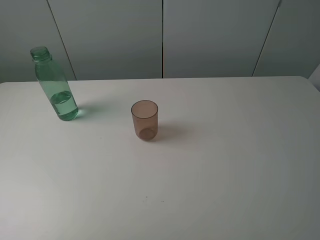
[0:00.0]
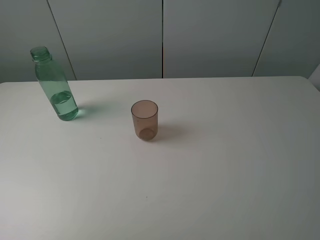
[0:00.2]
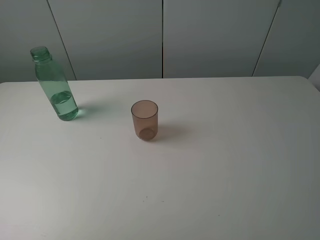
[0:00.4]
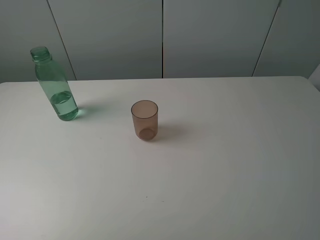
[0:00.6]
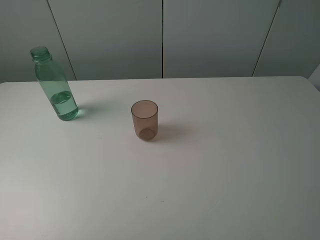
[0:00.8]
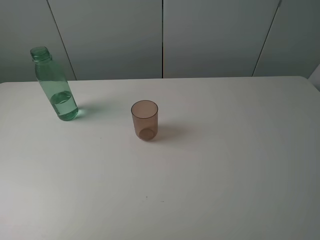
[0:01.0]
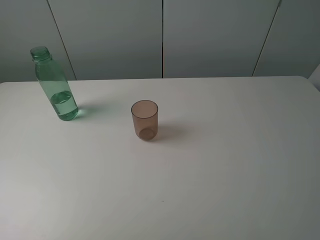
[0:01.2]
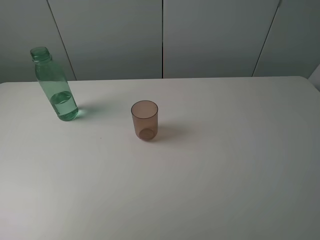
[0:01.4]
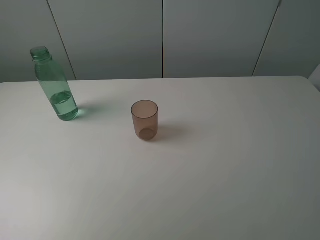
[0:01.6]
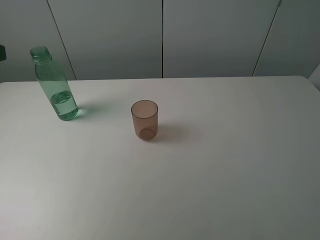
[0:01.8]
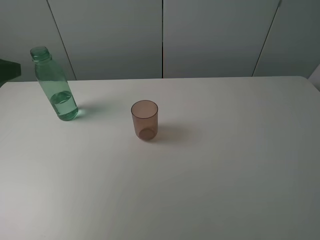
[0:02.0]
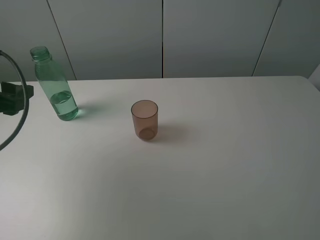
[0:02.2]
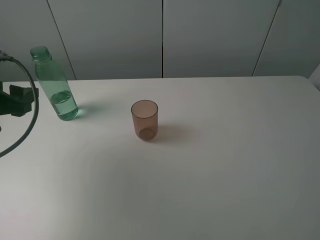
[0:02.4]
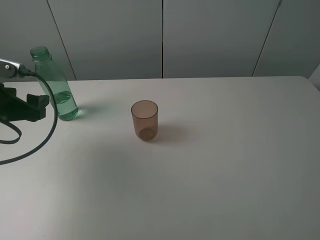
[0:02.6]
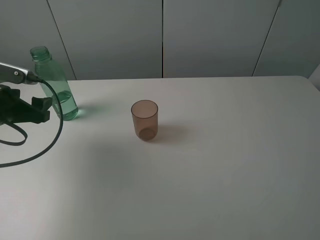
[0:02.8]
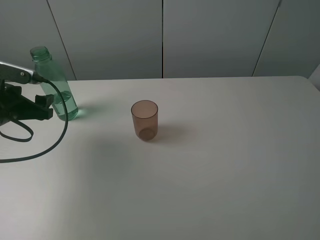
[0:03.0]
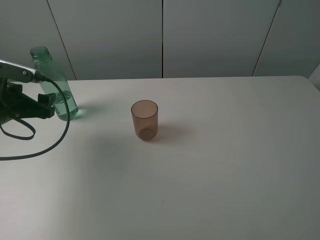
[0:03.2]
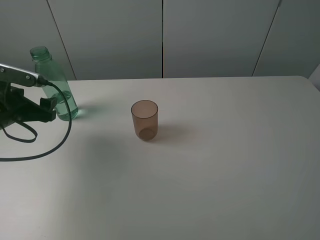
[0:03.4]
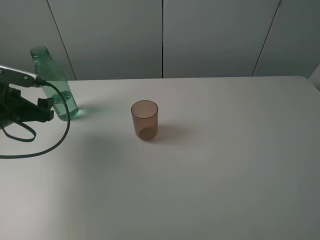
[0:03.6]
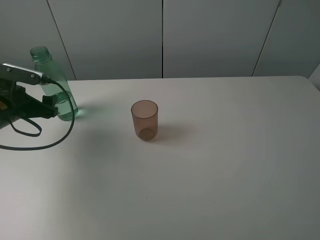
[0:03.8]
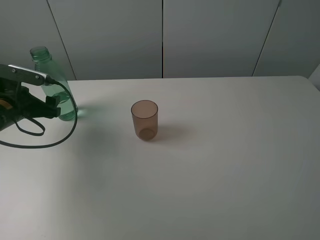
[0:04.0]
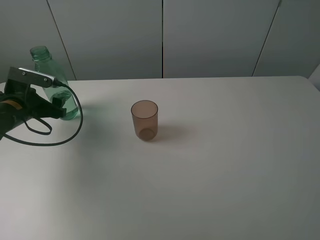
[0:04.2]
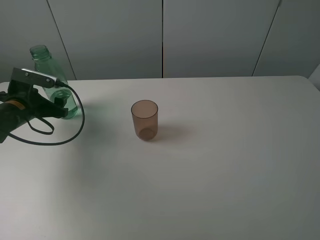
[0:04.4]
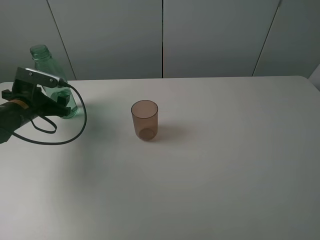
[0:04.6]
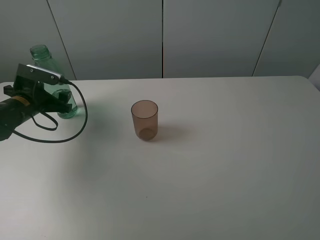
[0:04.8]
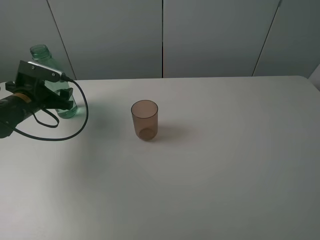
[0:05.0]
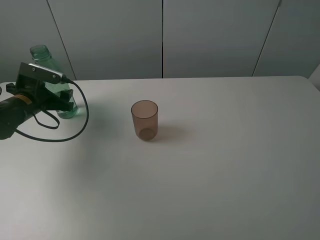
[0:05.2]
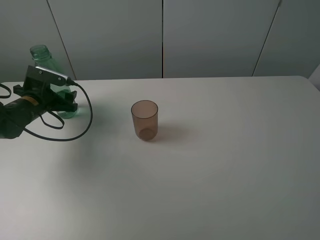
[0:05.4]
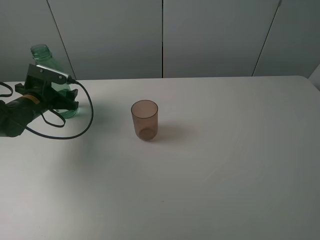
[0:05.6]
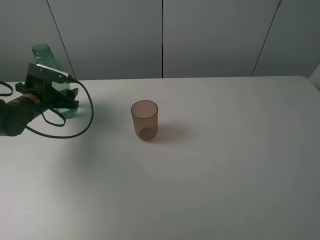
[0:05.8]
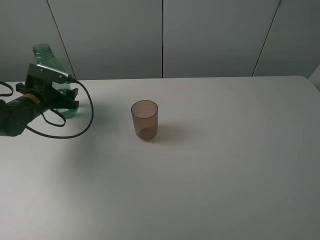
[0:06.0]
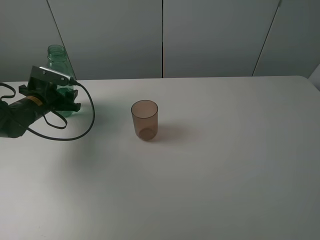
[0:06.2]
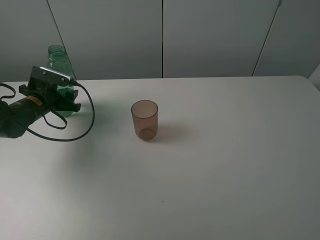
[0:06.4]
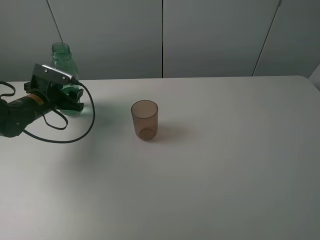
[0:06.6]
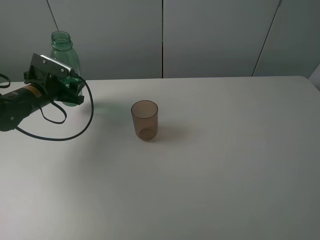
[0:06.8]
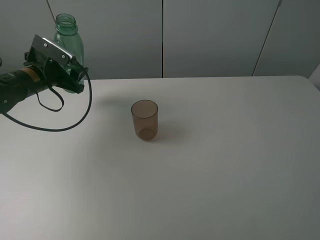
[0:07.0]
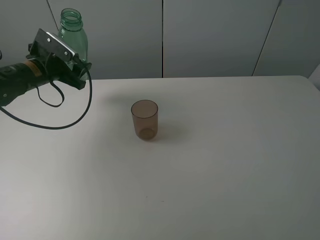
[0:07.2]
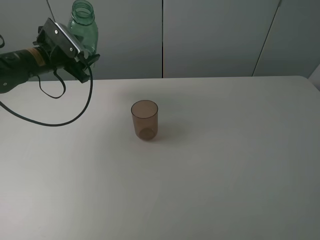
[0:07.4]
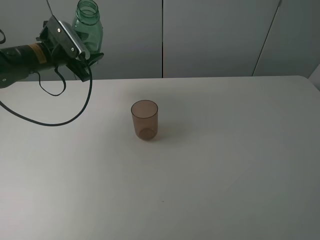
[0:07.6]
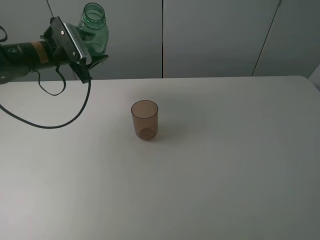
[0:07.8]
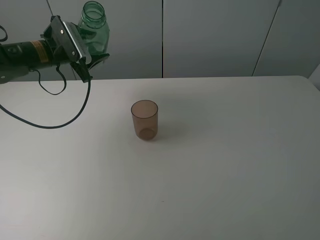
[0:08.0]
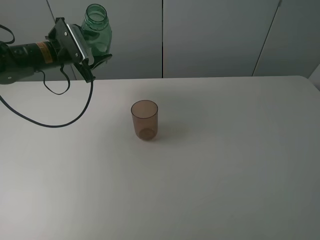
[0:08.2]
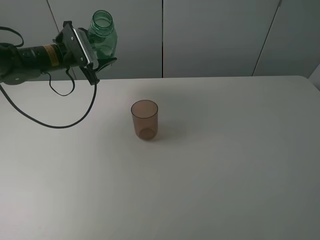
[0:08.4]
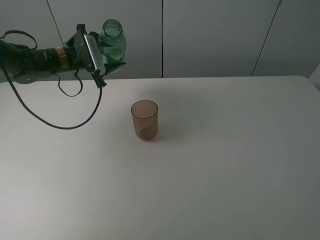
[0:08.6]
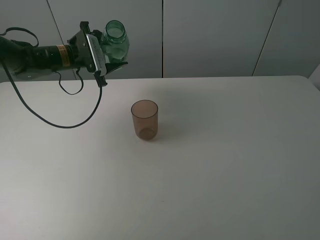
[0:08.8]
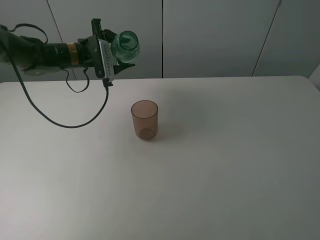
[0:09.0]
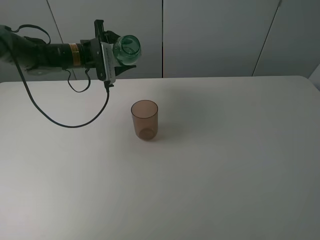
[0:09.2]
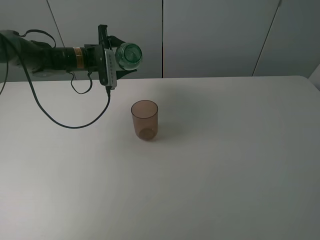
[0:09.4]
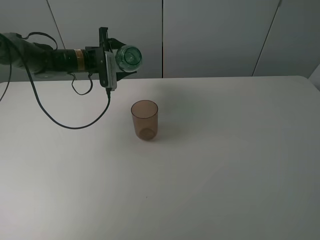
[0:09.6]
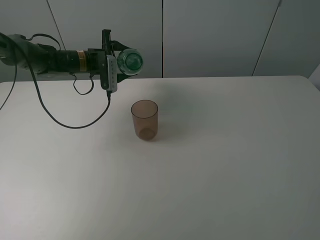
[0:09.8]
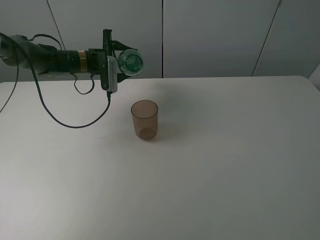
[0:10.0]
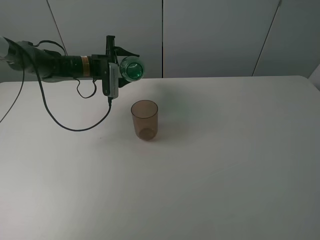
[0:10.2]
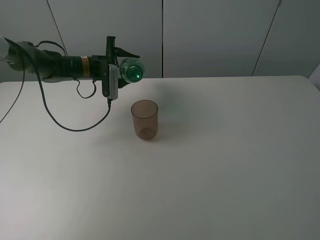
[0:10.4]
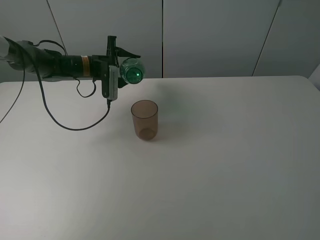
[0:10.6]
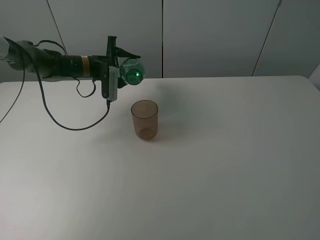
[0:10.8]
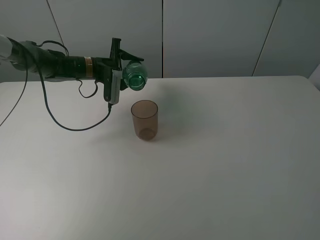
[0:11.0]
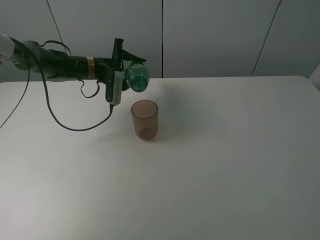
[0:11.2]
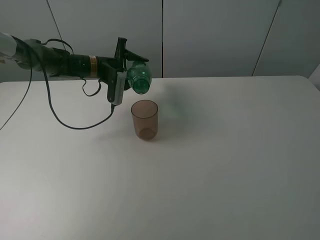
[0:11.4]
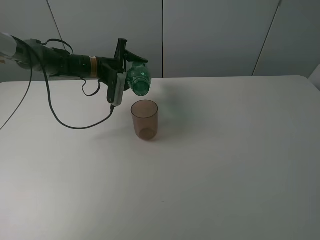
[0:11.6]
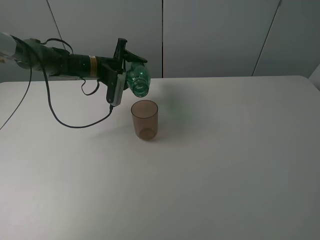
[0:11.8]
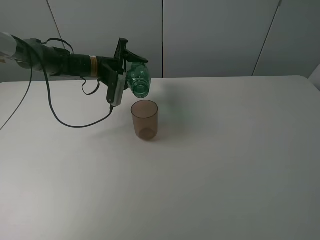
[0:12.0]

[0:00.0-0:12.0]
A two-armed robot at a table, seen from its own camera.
Task of the whole recording: pick up the bottle filled with water and pour it into the pink cup.
Step, 0:00.0 to 0:06.4: Grasp the green bottle with the left gripper.
0:01.6 to 0:03.0: The left gripper shifts some 25 cm downward and forward.
0:03.0 to 0:04.4: The left gripper travels forward and downward by roughly 10 cm.
0:04.4 to 0:06.0: The grippers move only a little.
0:06.0 to 0:07.6: The left gripper shifts about 10 cm upward and to the right.
0:07.6 to 0:09.0: The left gripper moves to the right, approximately 5 cm.
0:09.0 to 0:10.4: The left gripper changes place by some 5 cm.
0:10.4 to 0:12.0: The grippers stay close to where they were, moving slightly.

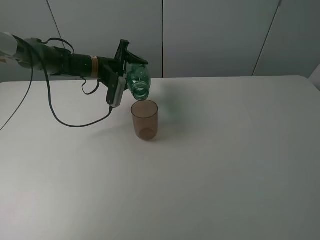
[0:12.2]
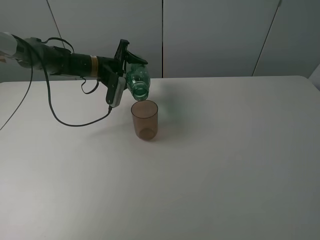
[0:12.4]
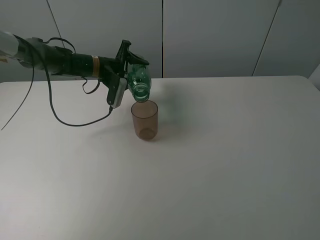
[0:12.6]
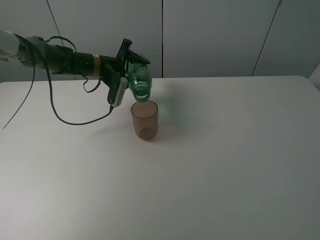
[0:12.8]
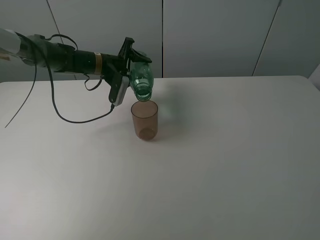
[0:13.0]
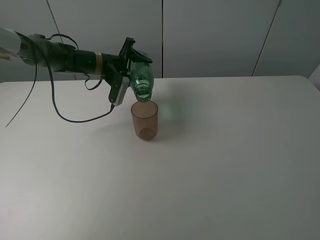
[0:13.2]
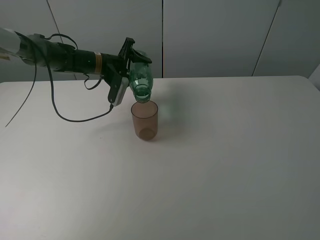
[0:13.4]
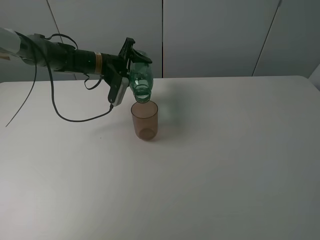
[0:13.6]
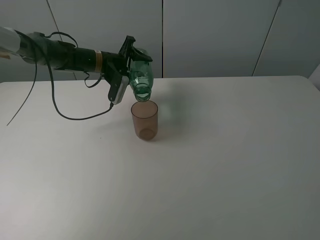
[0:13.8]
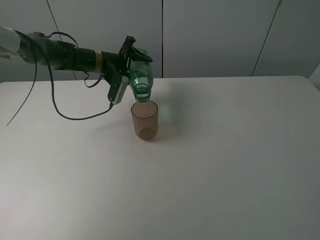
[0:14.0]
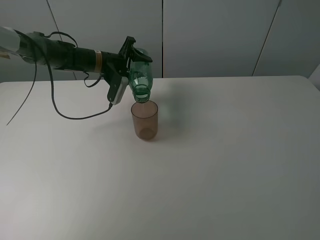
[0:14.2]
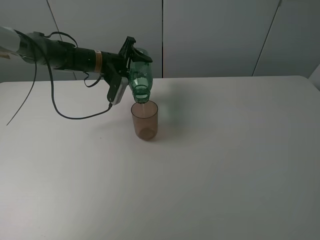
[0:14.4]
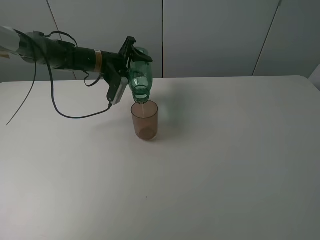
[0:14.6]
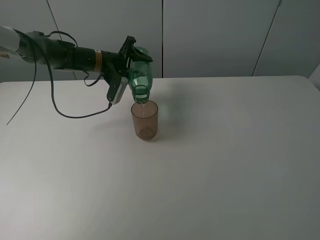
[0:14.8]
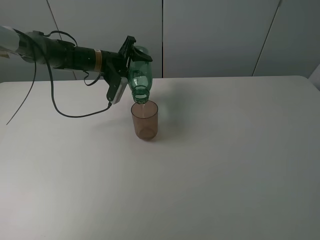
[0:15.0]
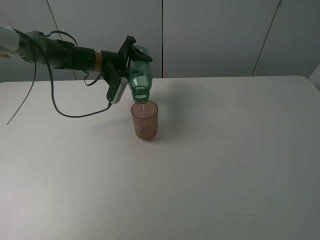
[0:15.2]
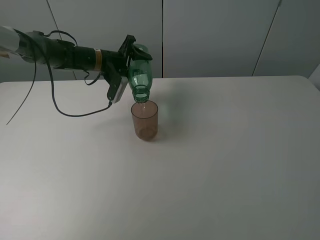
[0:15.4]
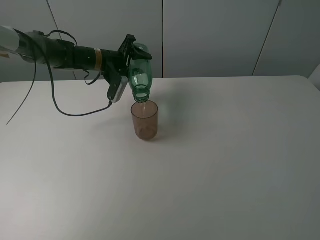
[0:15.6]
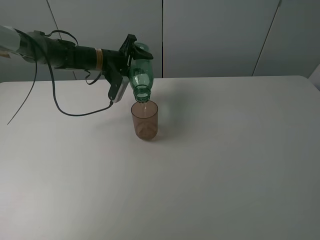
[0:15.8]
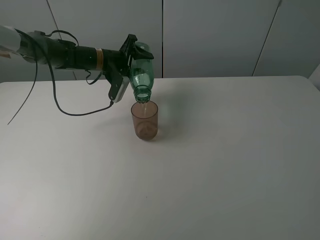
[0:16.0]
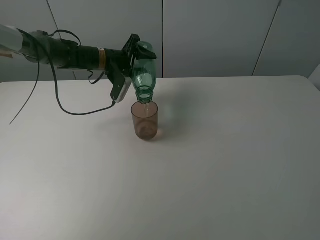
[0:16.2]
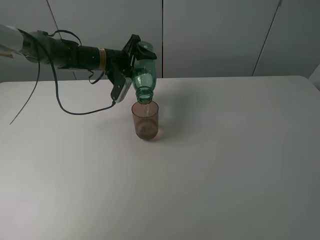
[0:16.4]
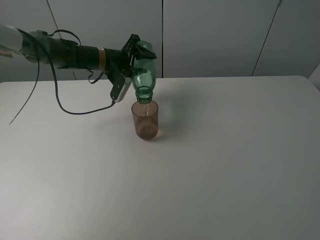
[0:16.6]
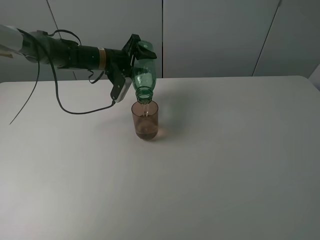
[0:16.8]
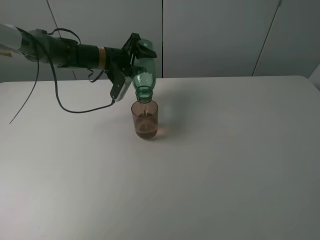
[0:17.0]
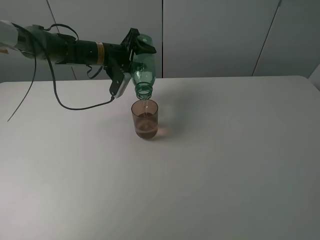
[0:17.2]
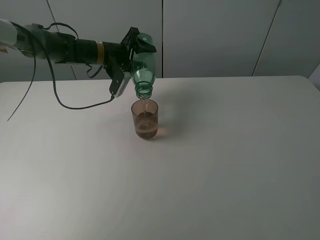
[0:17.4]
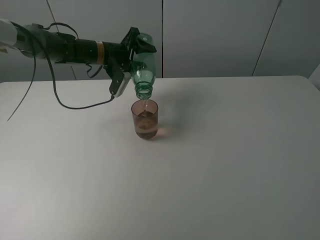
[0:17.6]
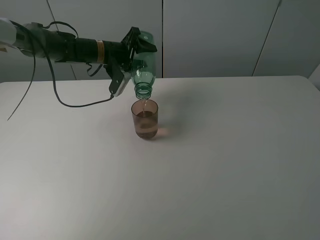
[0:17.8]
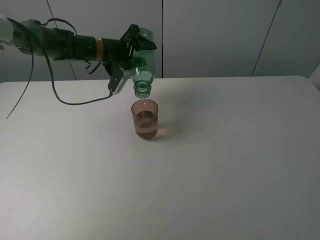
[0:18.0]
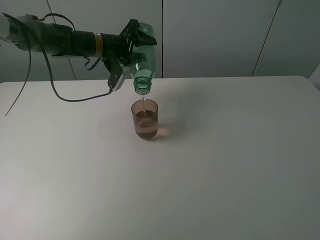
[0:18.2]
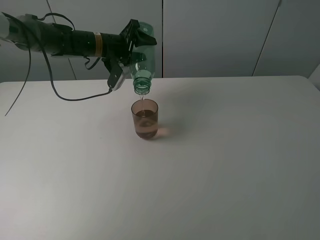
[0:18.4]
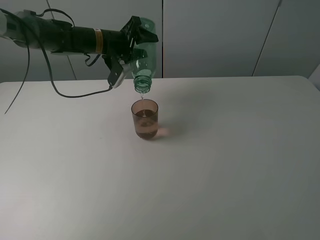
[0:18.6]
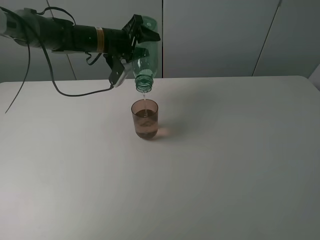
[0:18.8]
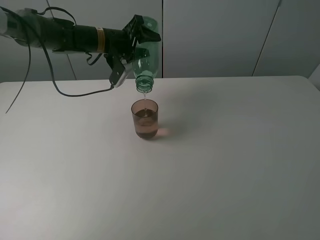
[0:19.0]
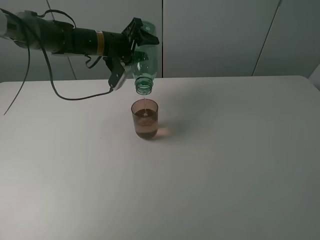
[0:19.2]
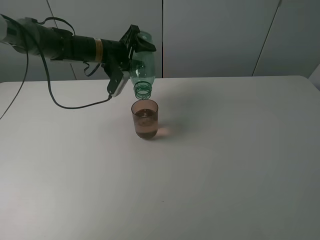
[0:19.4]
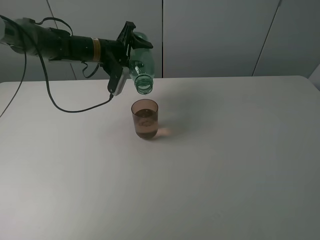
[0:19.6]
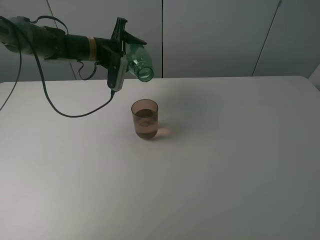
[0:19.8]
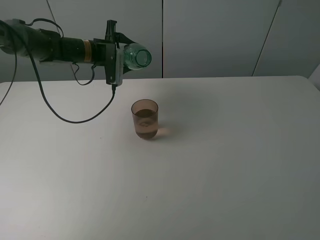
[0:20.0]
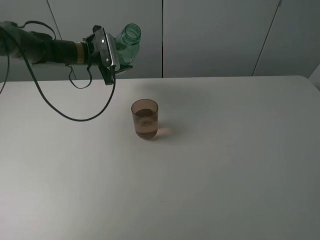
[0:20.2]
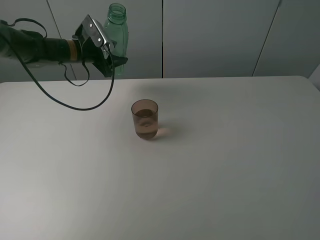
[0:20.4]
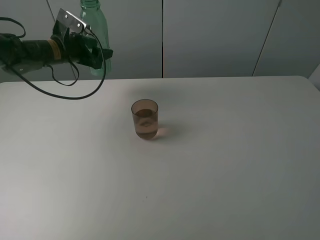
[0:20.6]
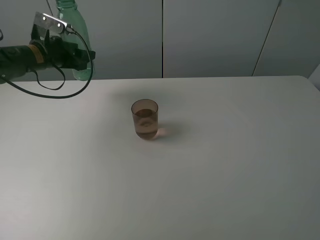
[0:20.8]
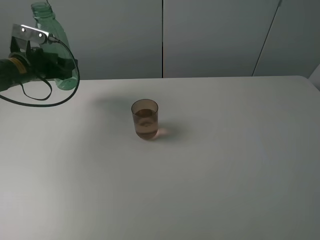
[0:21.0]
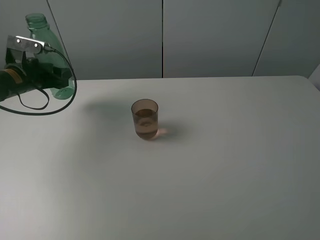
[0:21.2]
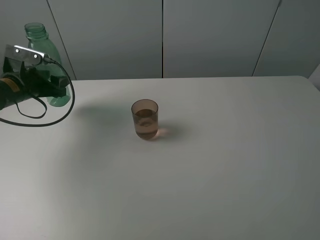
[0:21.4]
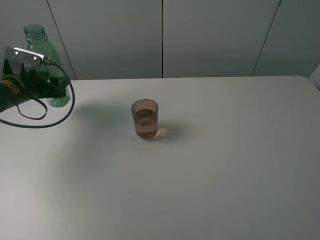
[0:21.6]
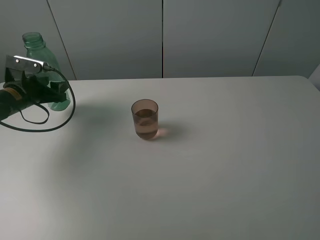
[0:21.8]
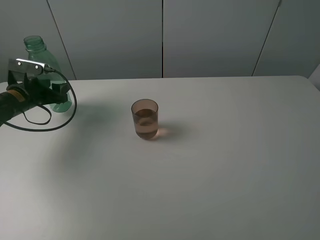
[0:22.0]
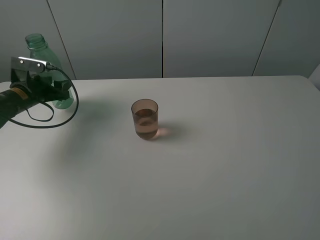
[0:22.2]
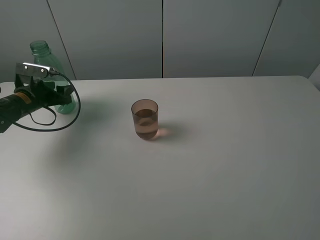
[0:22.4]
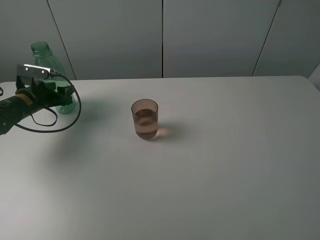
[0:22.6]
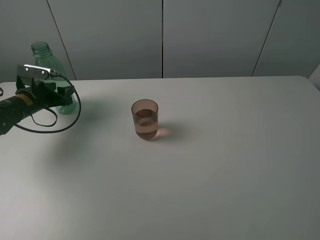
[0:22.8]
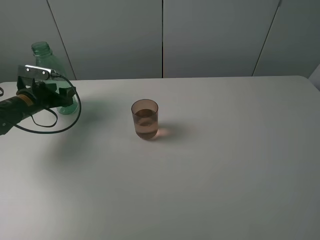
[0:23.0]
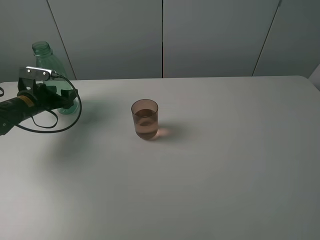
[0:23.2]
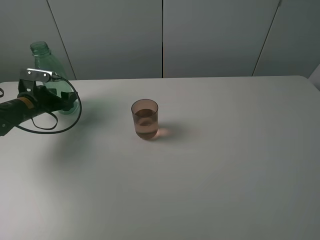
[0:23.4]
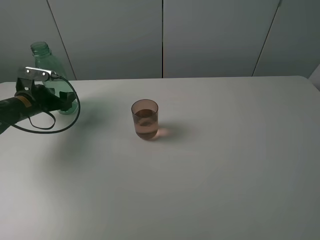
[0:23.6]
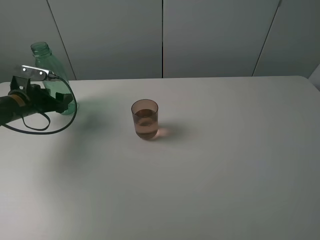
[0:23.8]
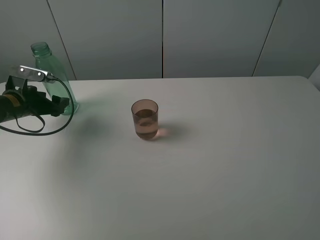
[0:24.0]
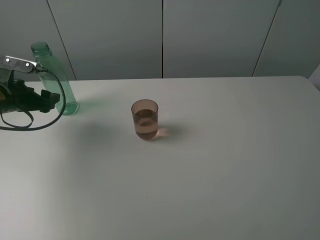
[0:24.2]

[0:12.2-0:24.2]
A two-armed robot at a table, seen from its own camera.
Task of the whole recording: pick up the bottle filled with water and pour it into the pink cup.
Step, 0:12.2 to 0:19.6: Pour water from green bottle to pink cup with the left gripper.
Step, 0:19.8 to 0:24.0: Place the green bottle with the left gripper.
0:12.2 to 0:16.6: The grippers make only small movements.
0:16.6 to 0:18.2: There are only small adjustments of the grippers.
0:19.8 to 0:21.2: The left gripper travels to the left and backward by some 20 cm.
0:21.2 to 0:22.6: The left gripper moves downward, some 5 cm.
0:22.6 to 0:24.2: The left gripper shifts approximately 10 cm upward and backward, and opens its fingers.
